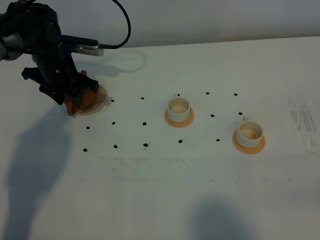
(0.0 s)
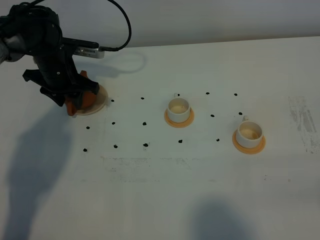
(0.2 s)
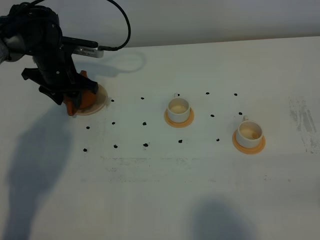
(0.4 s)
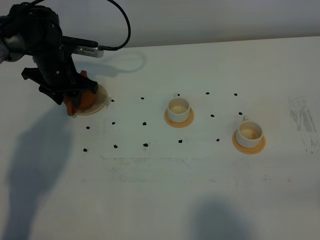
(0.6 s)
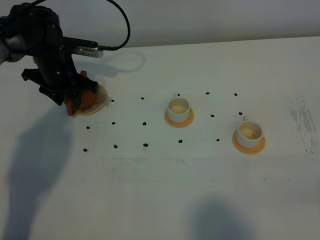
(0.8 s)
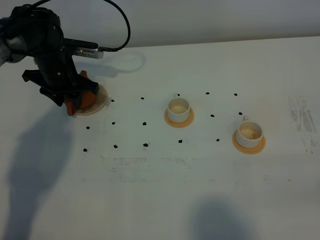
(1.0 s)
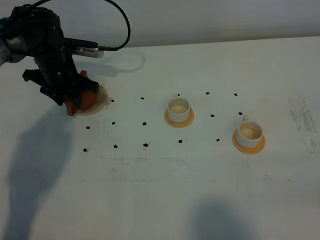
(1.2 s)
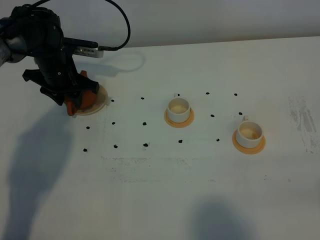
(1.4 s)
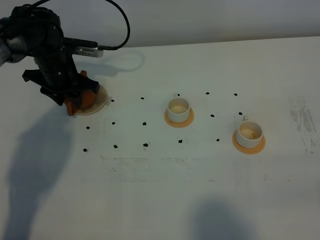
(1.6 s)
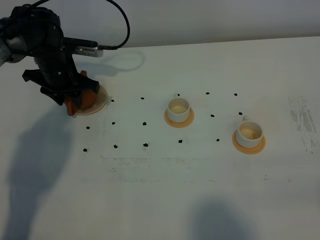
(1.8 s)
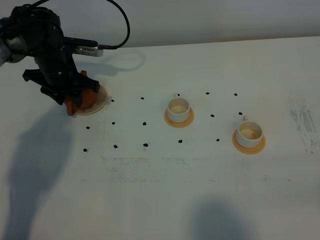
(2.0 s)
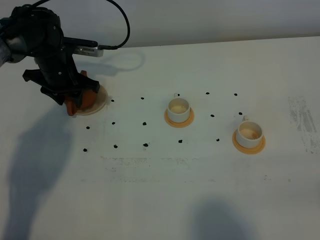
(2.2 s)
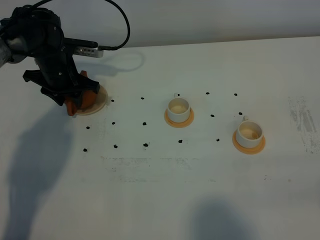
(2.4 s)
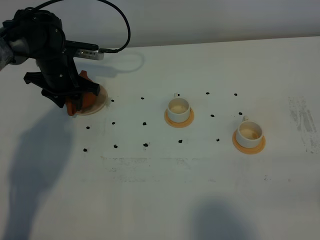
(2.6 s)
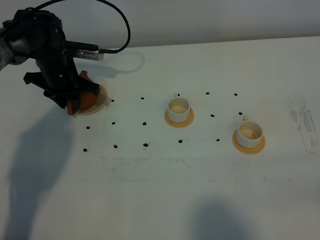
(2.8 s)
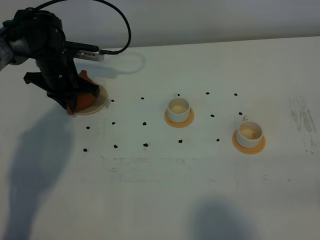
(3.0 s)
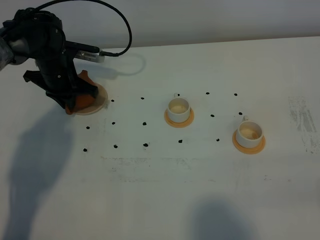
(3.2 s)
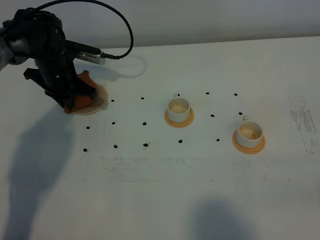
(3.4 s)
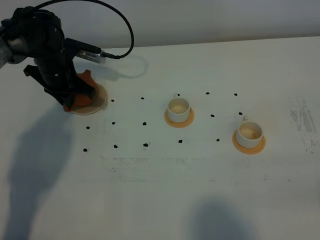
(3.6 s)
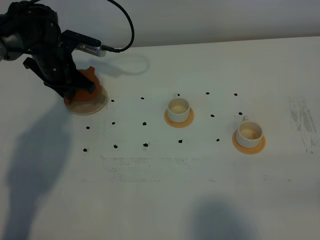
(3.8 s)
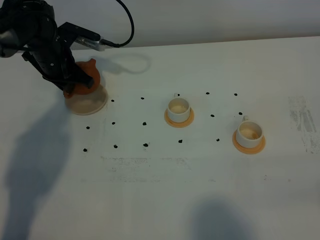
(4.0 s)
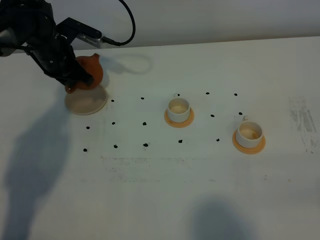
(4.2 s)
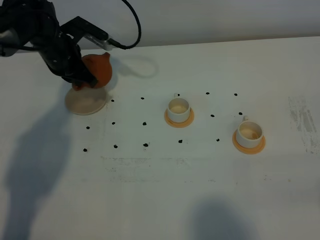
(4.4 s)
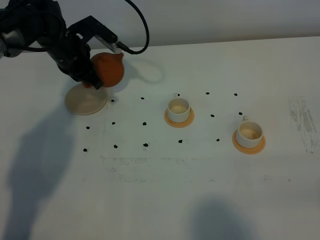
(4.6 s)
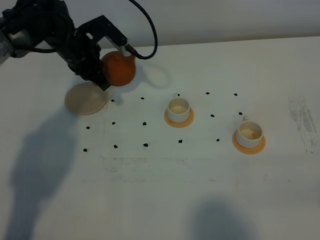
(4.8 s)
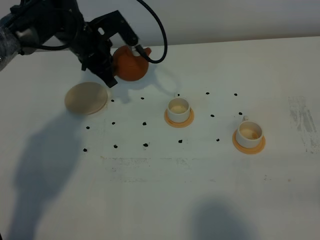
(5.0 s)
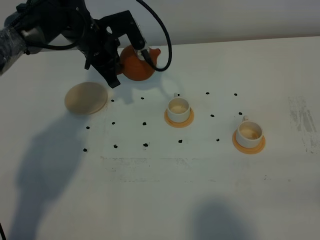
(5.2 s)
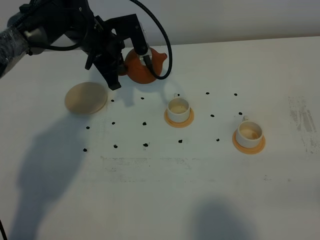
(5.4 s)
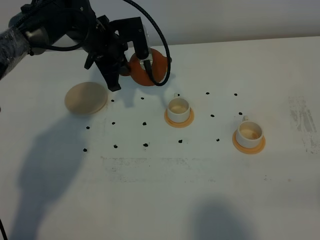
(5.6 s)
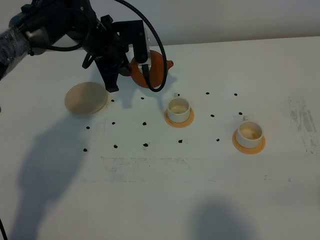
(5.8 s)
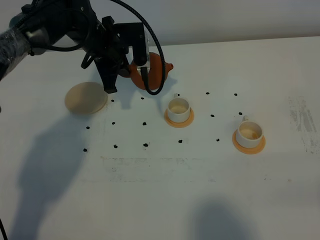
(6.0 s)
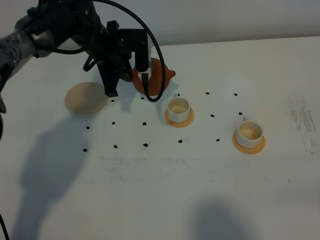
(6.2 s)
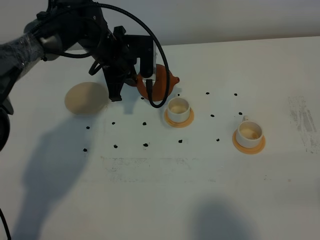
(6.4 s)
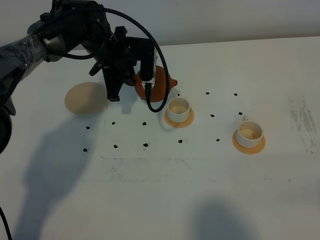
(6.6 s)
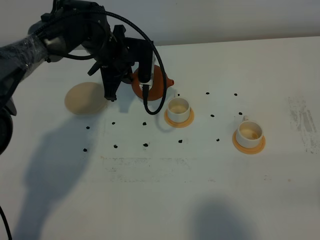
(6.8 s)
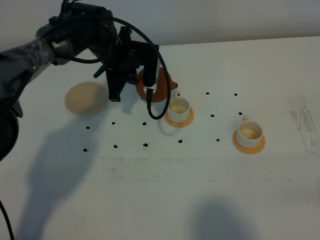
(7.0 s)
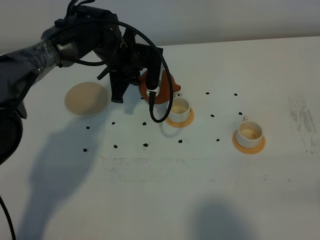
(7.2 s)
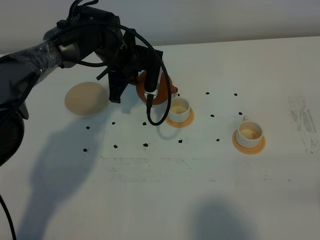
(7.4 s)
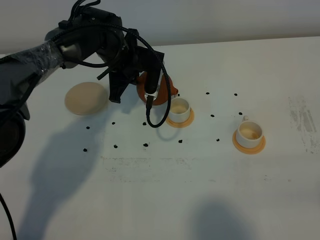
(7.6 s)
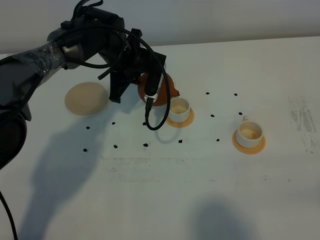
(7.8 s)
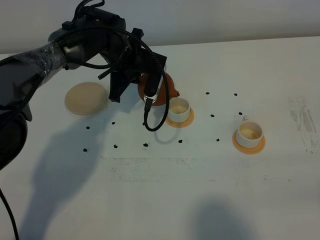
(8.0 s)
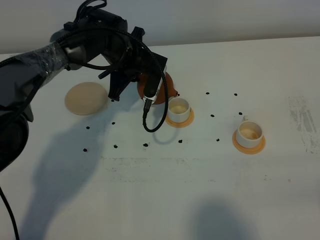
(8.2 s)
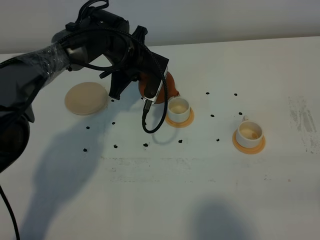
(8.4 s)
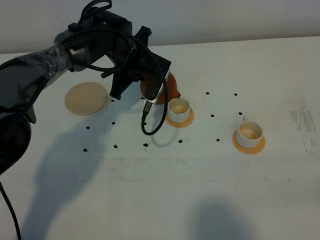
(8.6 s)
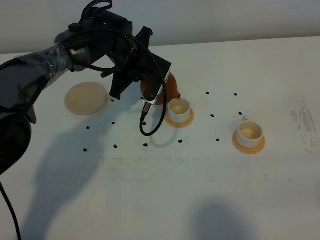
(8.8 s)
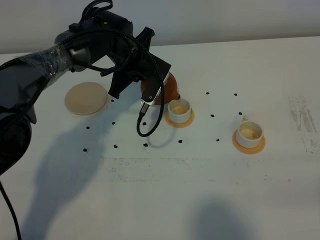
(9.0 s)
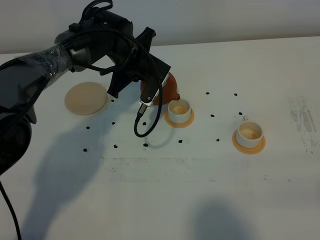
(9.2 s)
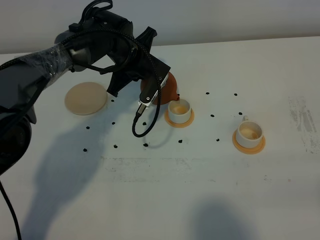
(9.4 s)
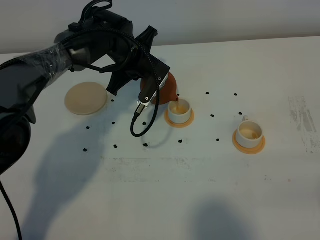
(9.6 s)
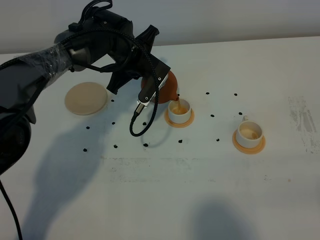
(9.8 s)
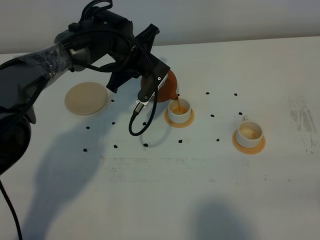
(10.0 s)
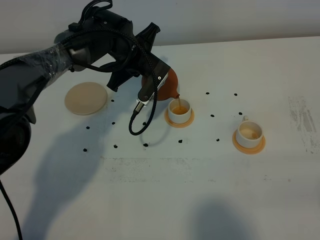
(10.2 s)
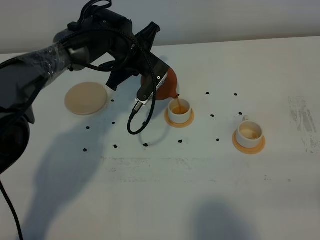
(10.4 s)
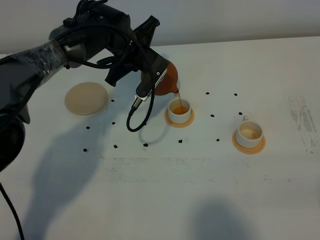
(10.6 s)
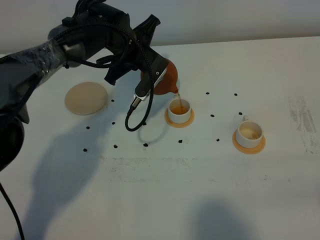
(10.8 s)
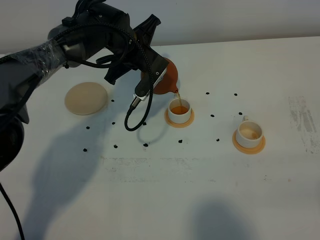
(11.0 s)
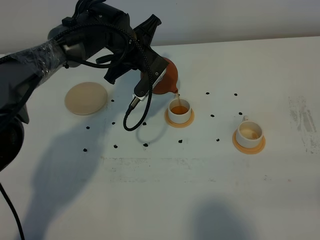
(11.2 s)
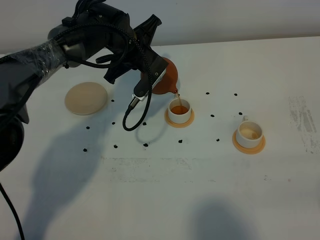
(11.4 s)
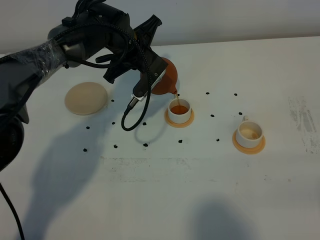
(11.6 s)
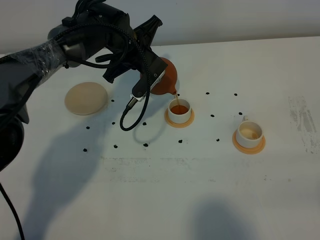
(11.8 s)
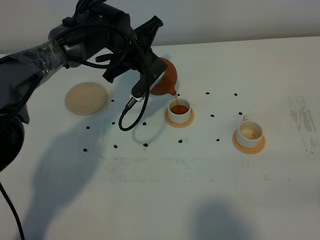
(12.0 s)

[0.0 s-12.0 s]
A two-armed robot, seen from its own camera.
Task of the whole recording: grasp the brown teapot and pour the tea into the two white teacups one by one, put the brown teapot back in its original place.
Step, 0.0 to 3.8 s: Pick up the teapot with the left gripper.
0.0 to 1.6 s: Both grippers stay about where they are.
1.6 to 3.0 s: The left gripper closes up.
4.4 to 6.0 s: The left gripper heads to the right, covering roughly 10 cm.
7.6 to 9.0 s: The grippers make only small movements.
9.0 to 12.0 s: The grippers stay close to where they were, moving slightly.

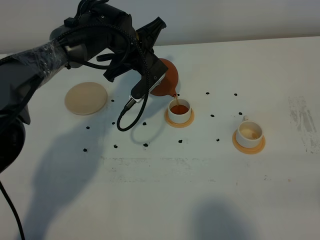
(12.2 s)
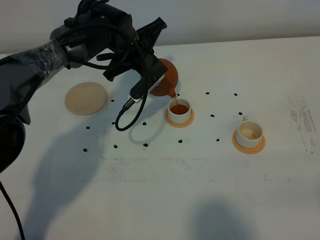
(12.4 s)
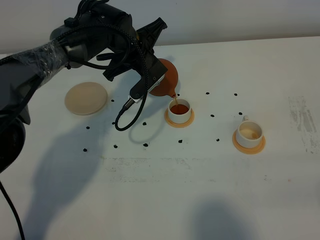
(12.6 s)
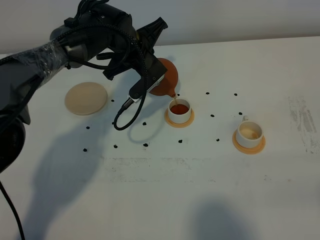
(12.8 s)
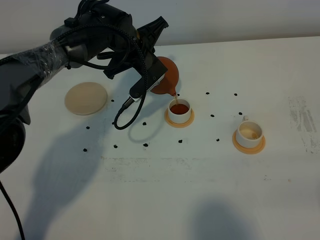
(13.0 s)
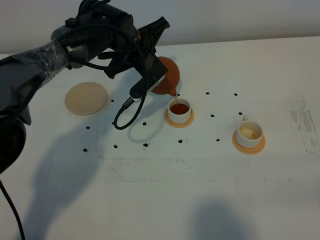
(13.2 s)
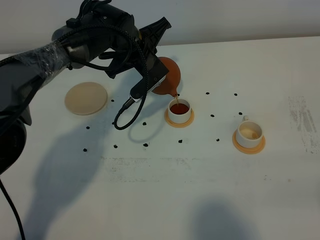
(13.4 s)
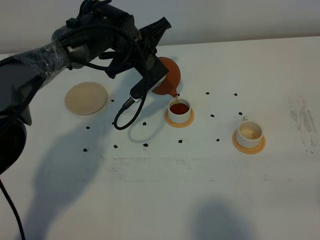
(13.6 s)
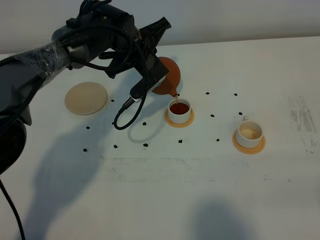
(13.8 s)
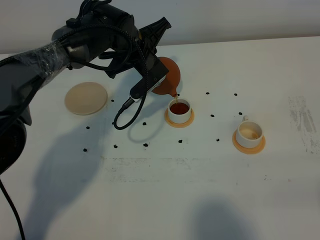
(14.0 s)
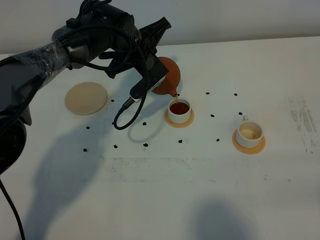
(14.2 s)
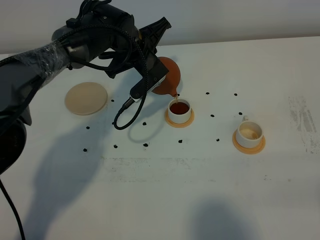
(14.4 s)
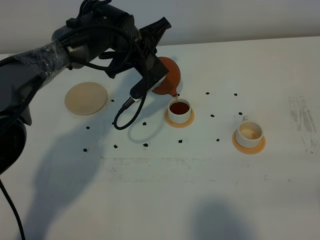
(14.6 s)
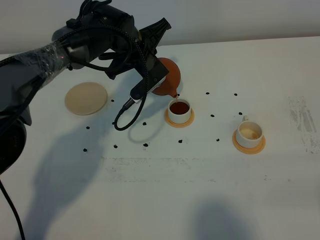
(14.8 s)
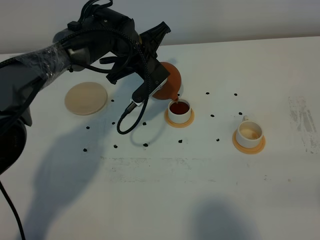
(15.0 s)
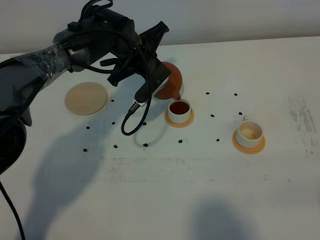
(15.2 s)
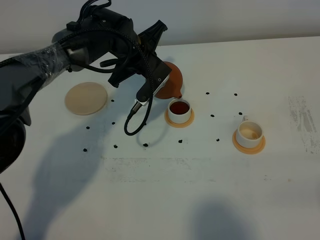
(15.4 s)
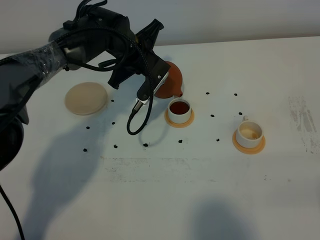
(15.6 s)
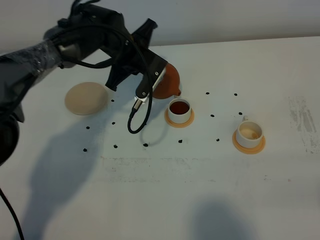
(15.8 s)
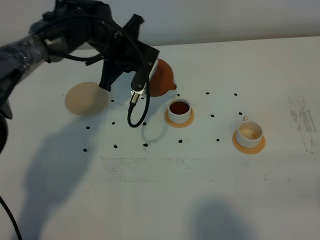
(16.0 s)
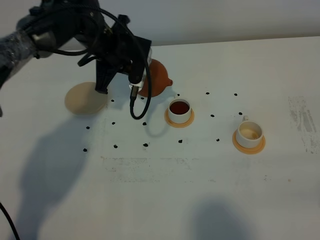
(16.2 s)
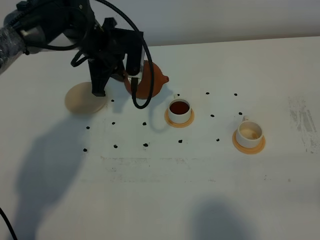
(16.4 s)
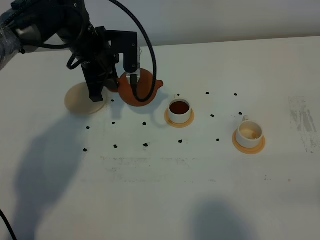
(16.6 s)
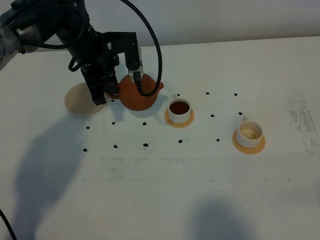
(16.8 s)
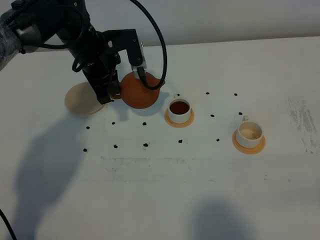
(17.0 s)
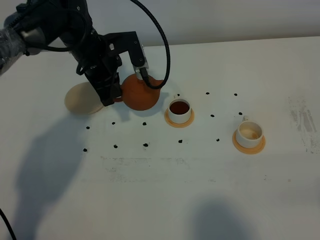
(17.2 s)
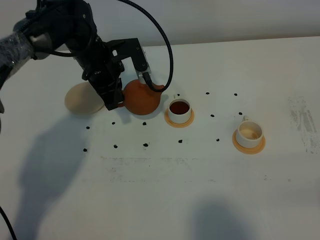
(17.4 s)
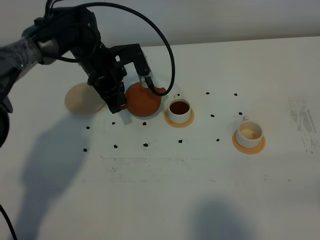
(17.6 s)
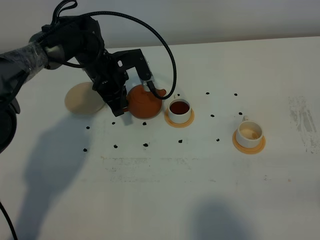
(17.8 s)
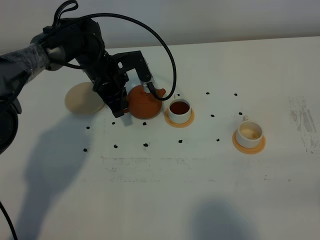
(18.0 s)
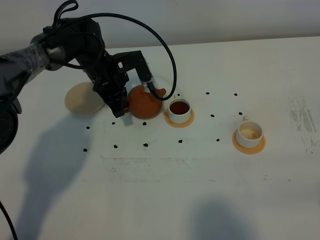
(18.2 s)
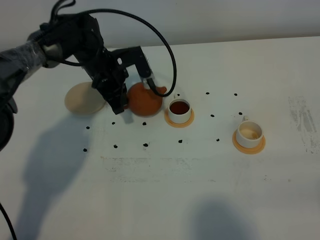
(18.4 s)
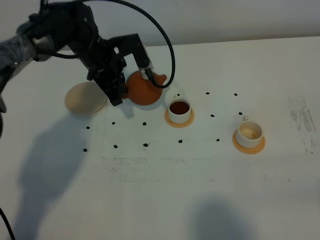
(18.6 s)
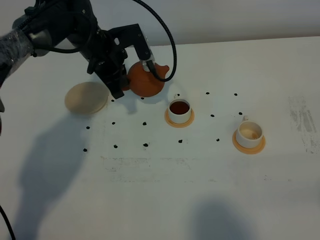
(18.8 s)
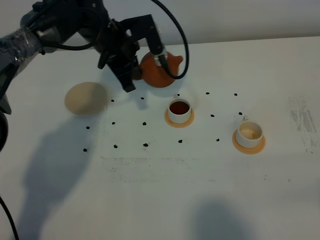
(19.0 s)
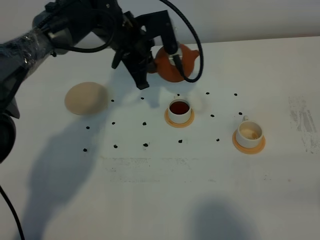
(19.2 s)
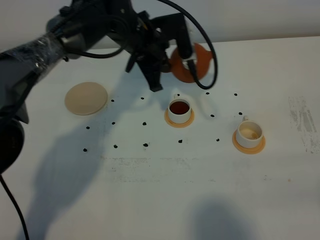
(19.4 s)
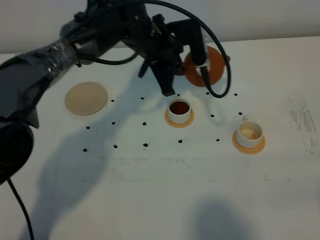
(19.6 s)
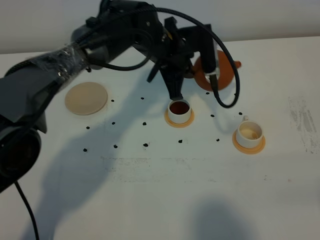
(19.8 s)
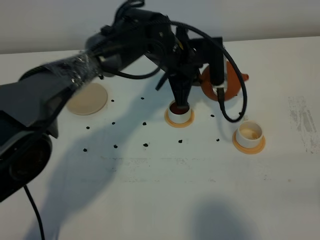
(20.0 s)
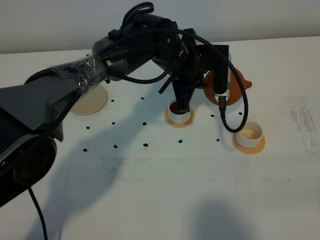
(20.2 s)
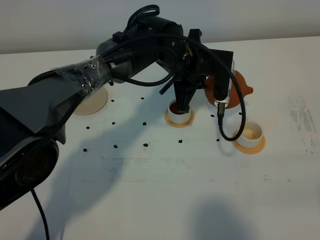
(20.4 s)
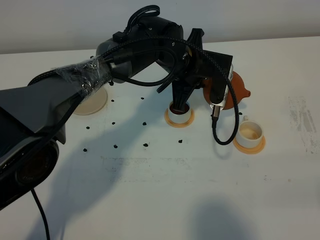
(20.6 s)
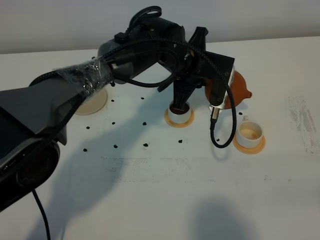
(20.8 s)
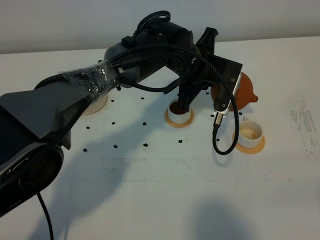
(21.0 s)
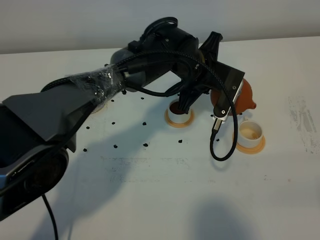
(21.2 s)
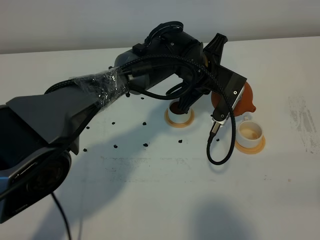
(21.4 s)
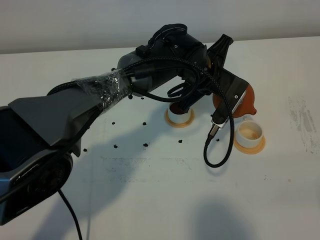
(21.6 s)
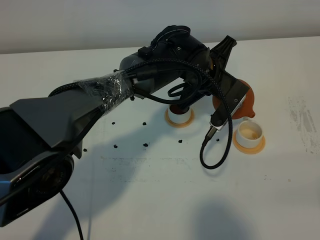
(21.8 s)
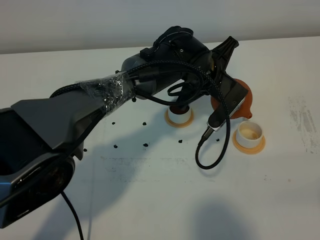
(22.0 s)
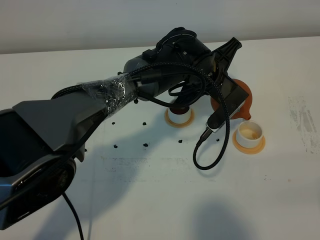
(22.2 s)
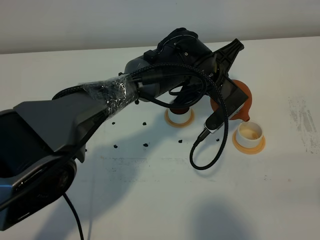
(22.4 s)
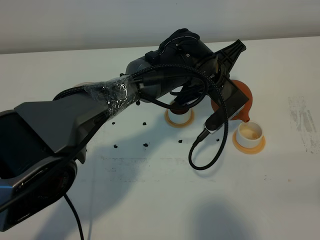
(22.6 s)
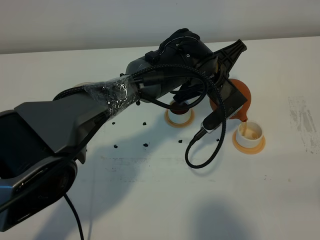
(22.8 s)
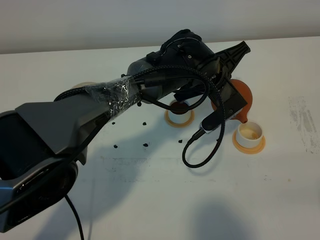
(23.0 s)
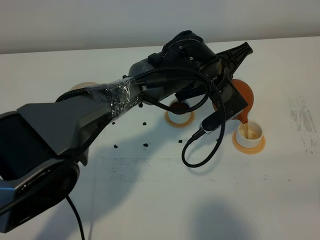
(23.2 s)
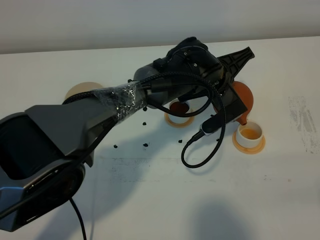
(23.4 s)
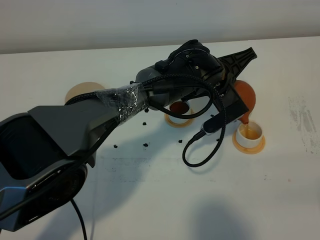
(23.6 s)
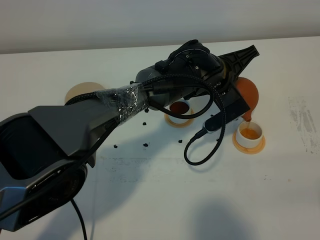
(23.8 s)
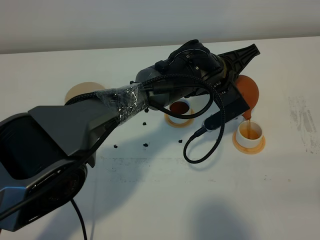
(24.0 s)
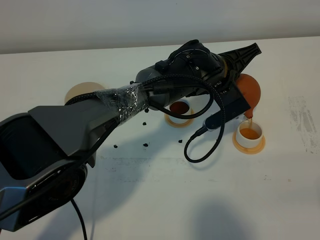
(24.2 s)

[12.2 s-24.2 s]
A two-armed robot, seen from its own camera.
Task of the whole recording: grasp the brown teapot and pour the tea into the two white teacups one by one, put the brown teapot back in its original place.
12.2 to 15.2 s: The grippers stay close to where they were, moving slightly.
15.2 to 16.6 s: The left gripper travels to the left by roughly 5 cm.
16.6 to 18.2 s: The left gripper is displaced downward by roughly 10 cm.
18.2 to 19.8 s: The left gripper shifts some 15 cm to the right and upward.
19.8 to 21.2 s: The left gripper goes about 5 cm to the right.
22.6 to 24.2 s: The grippers stay close to where they were, moving slightly.
